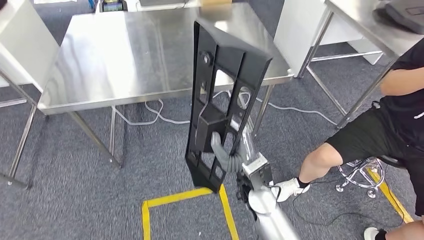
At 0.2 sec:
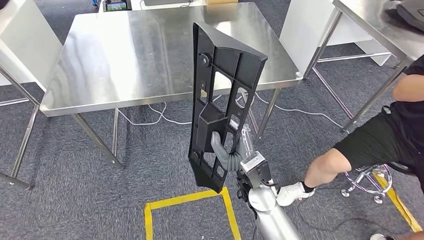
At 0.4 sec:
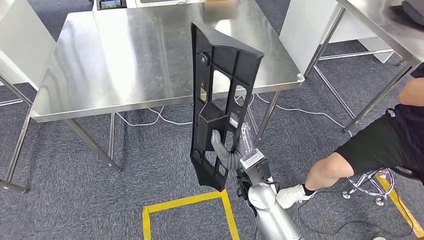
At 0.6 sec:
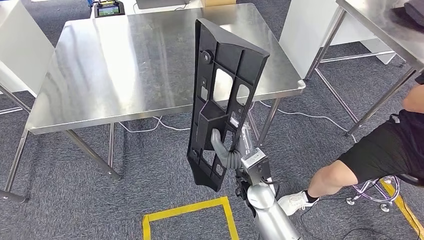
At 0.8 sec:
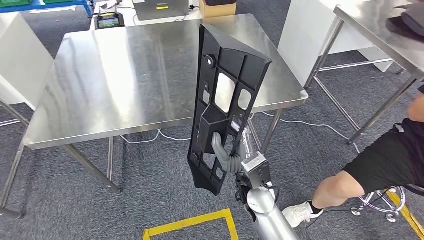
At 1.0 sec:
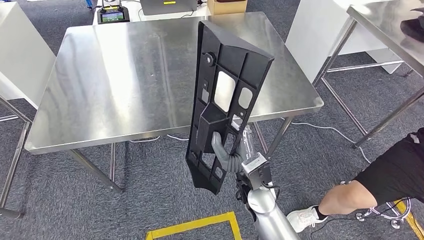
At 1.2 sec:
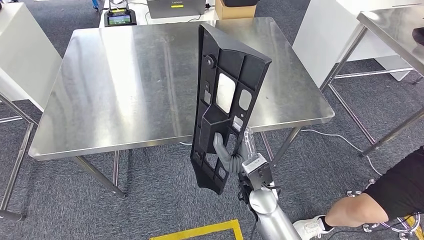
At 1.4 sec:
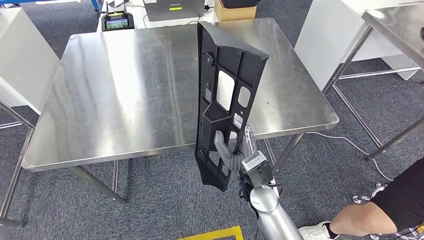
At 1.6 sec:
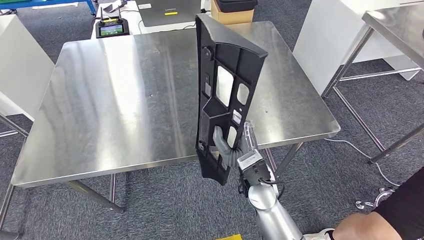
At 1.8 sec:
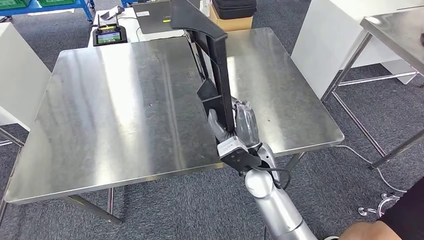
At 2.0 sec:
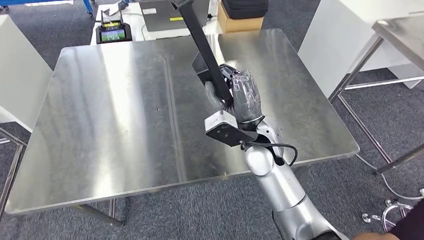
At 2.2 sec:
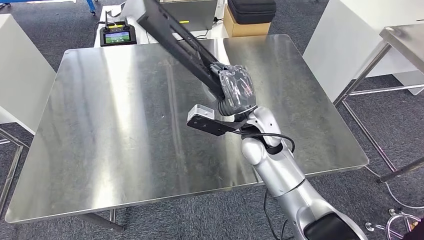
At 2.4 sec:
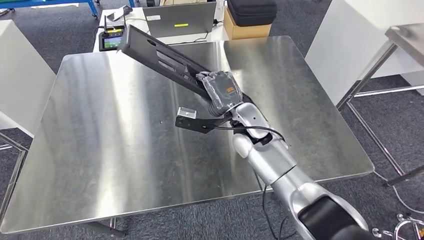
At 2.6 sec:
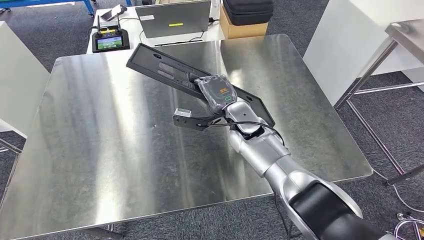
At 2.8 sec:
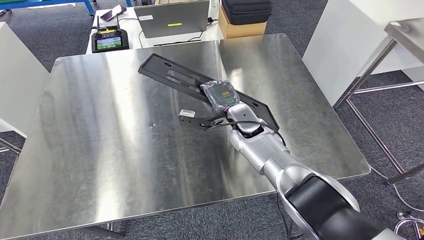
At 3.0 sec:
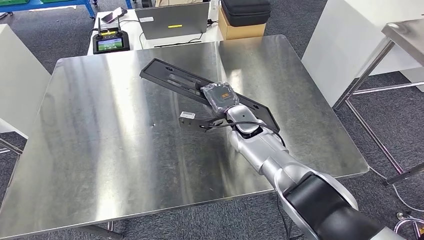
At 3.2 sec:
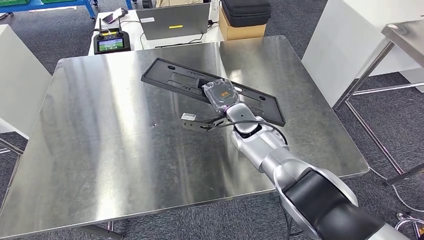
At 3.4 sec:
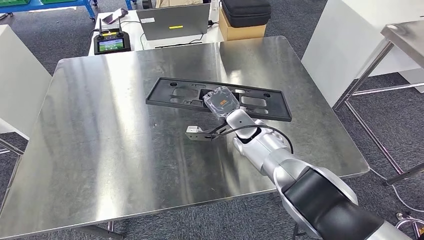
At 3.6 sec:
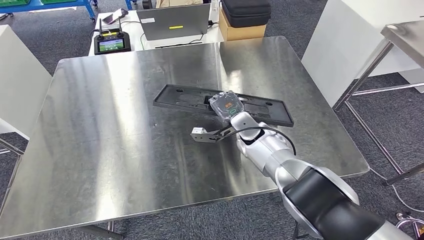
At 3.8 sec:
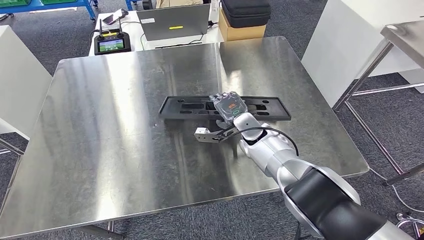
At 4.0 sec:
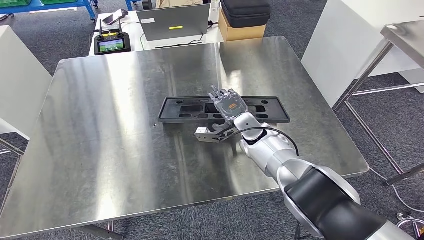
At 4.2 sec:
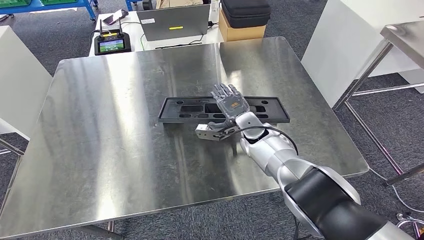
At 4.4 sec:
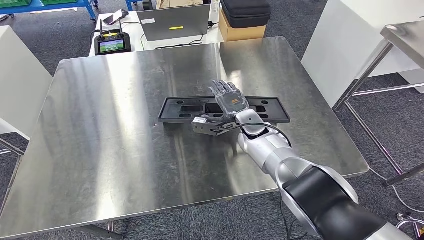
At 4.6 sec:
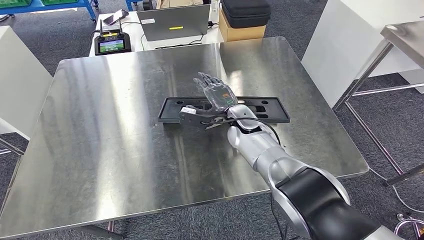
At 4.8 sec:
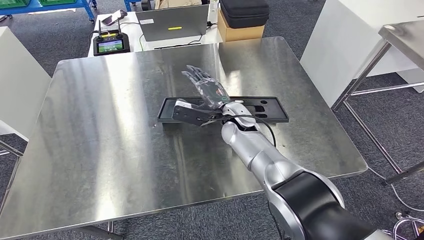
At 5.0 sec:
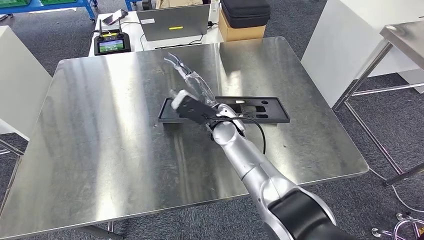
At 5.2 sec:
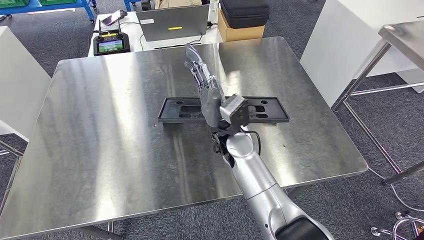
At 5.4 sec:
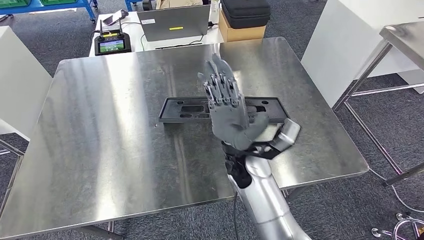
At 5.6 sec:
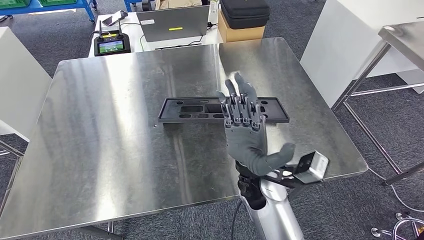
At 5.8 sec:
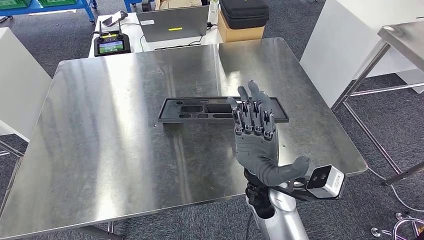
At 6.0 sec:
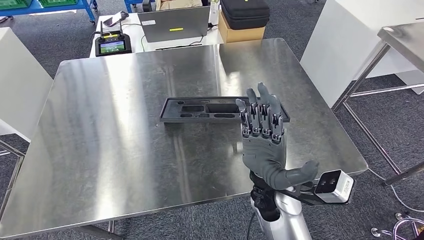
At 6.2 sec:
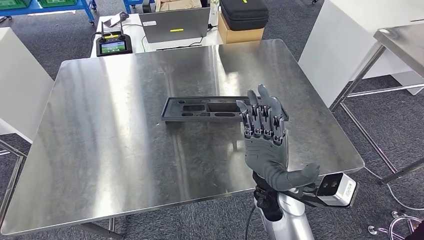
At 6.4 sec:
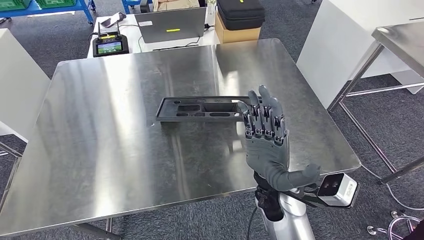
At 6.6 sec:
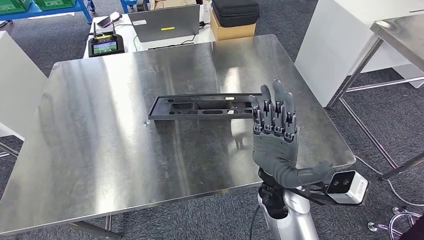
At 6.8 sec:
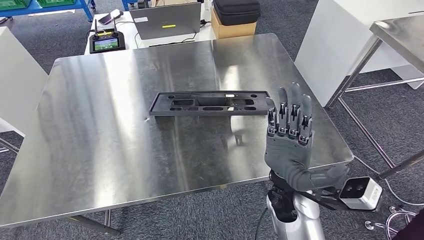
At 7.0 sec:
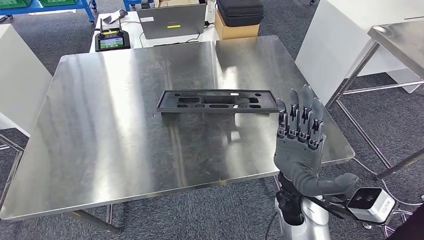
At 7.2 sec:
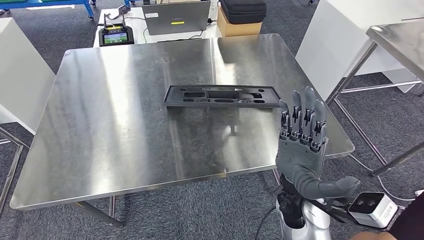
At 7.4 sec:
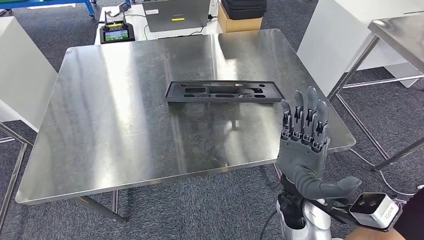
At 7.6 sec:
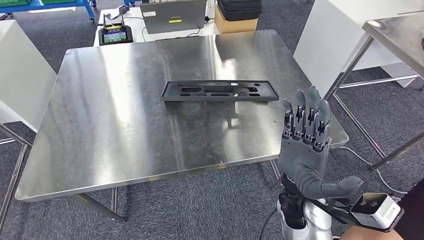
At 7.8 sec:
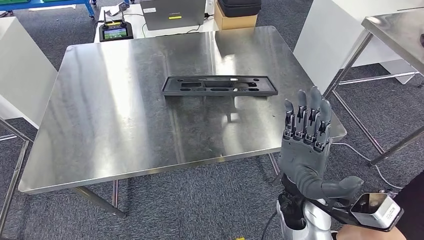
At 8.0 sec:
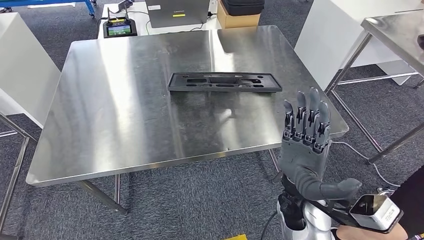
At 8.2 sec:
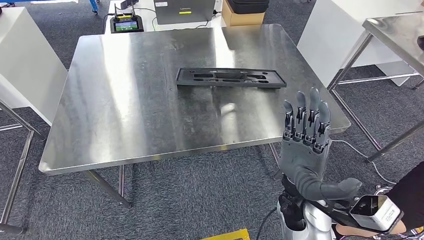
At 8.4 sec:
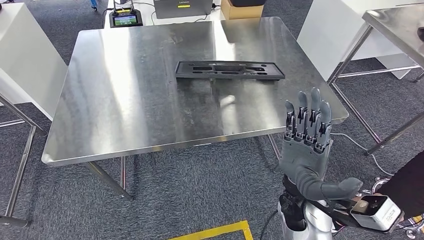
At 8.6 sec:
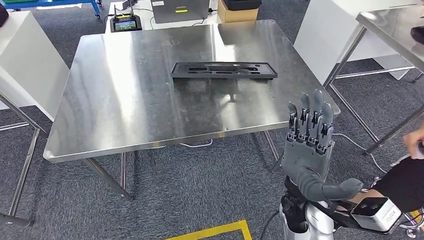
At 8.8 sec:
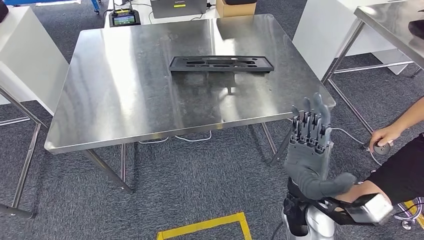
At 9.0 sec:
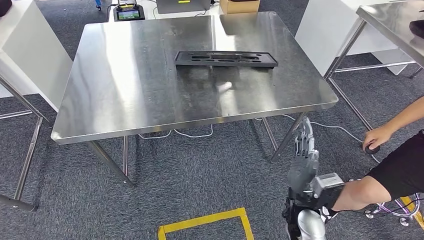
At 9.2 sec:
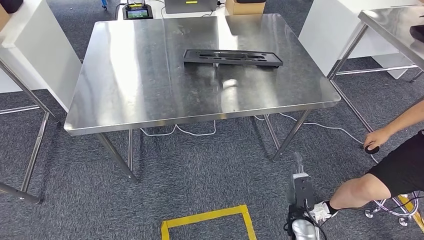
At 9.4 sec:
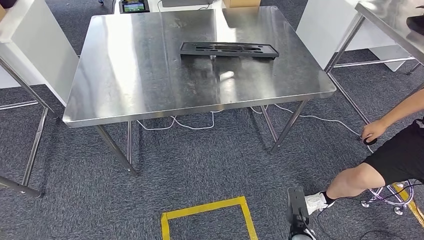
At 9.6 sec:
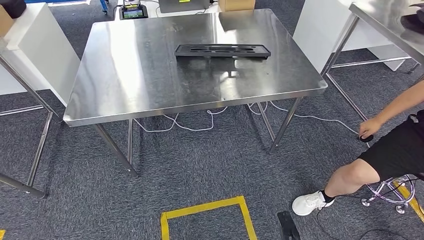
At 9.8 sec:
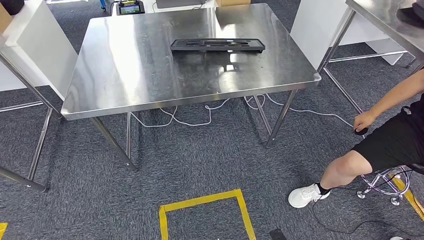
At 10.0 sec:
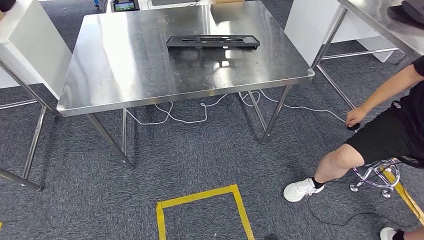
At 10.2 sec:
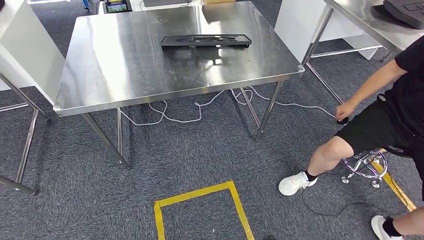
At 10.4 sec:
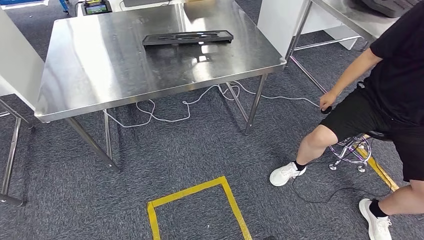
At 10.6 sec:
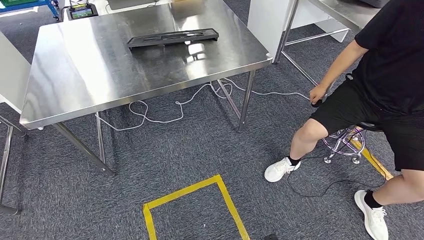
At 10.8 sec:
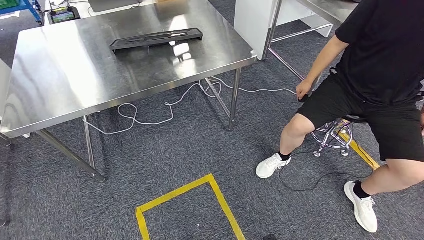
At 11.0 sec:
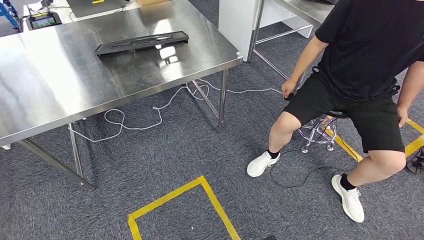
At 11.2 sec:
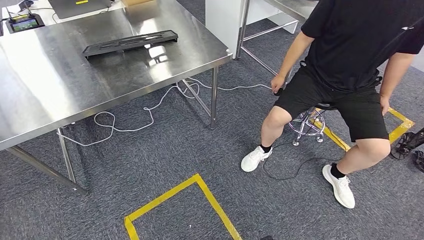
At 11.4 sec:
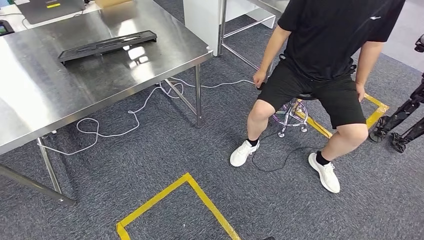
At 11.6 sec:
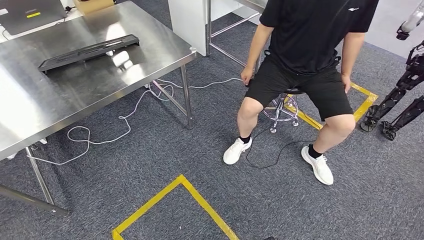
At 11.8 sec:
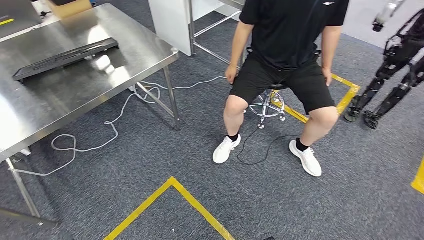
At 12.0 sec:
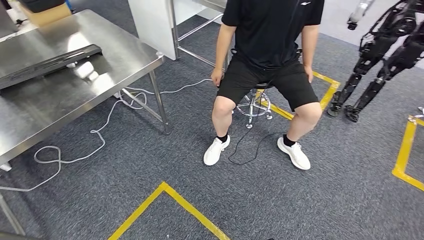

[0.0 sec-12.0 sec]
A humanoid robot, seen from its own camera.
Step, 1.4 sec to 10.6 sec: Insert the large material into the corresponding slot on the workbench.
4.4 sec to 6.0 sec: The right hand shifts about 20 cm backward.

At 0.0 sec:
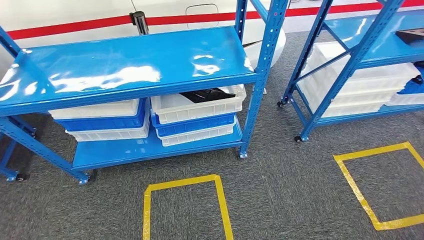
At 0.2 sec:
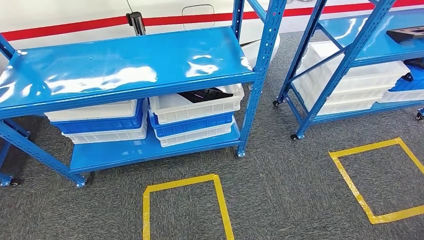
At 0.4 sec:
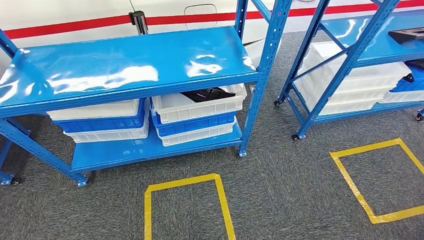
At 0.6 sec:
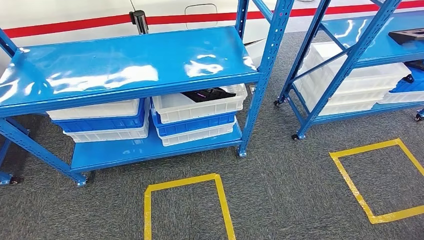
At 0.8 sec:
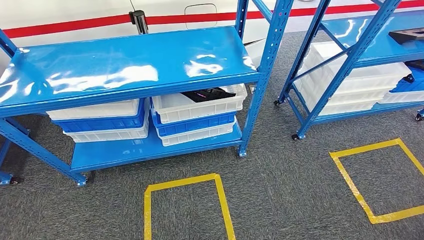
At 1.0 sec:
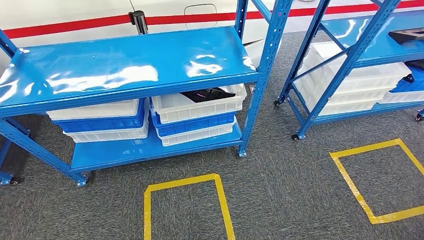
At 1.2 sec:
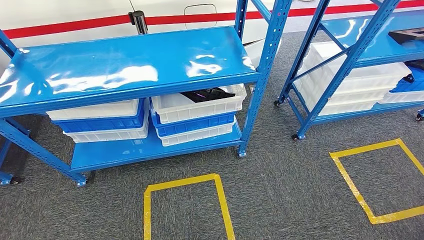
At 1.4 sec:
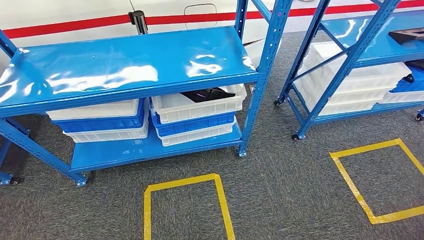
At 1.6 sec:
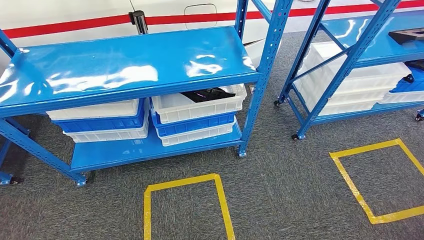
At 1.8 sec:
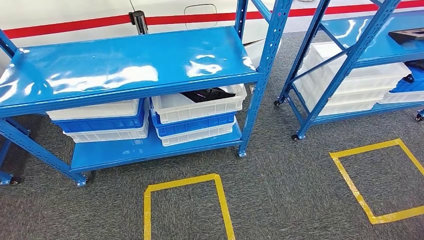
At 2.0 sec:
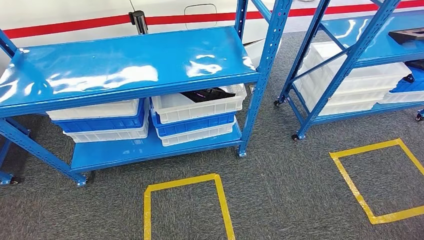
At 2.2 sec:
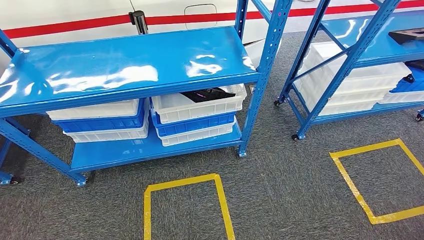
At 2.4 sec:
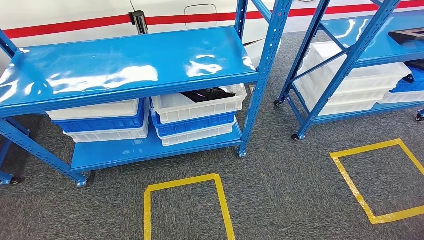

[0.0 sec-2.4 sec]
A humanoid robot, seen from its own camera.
Step, 0.0 sec to 2.4 sec: Move to the initial position of the shelf.
0.0 sec to 1.2 sec: Both hands stay put.
